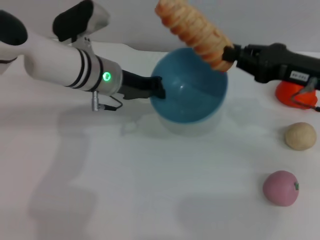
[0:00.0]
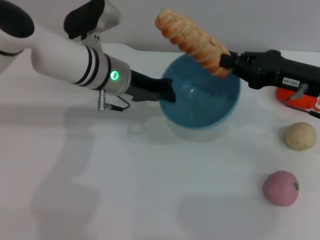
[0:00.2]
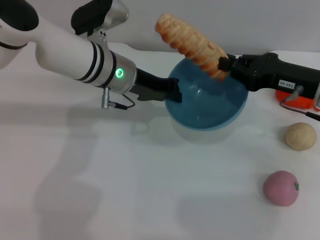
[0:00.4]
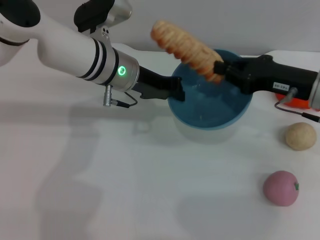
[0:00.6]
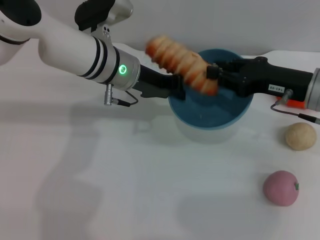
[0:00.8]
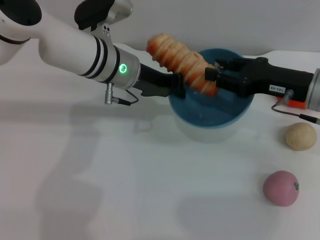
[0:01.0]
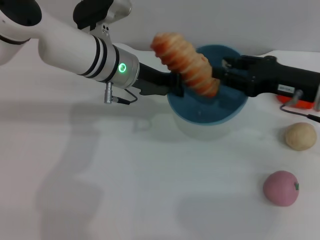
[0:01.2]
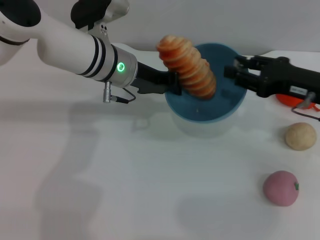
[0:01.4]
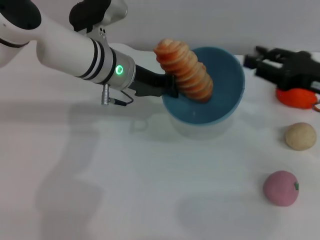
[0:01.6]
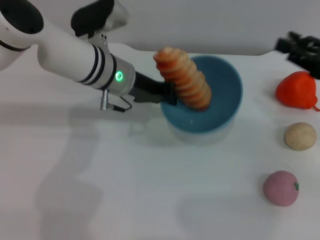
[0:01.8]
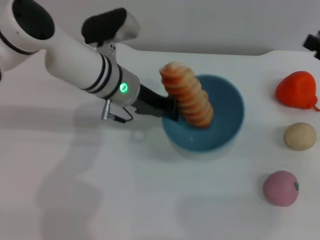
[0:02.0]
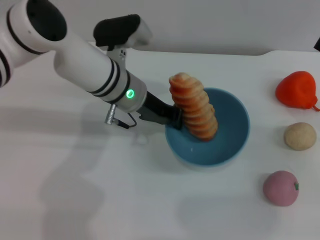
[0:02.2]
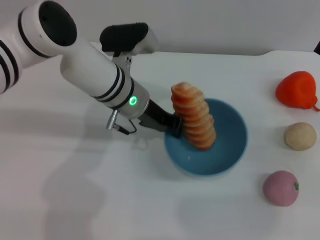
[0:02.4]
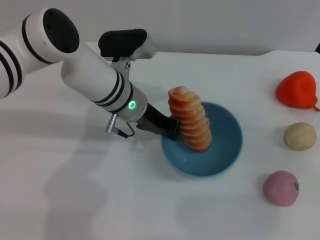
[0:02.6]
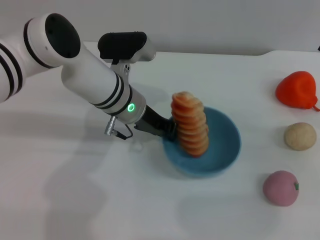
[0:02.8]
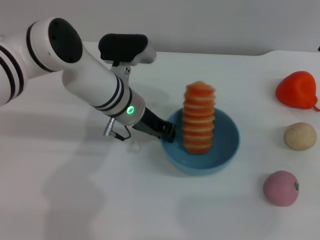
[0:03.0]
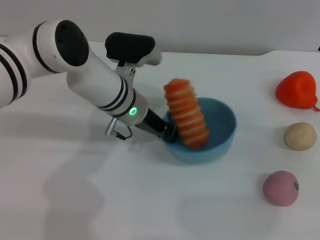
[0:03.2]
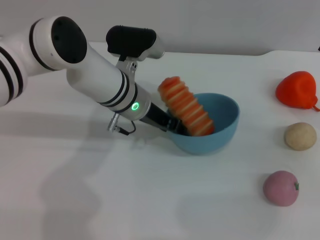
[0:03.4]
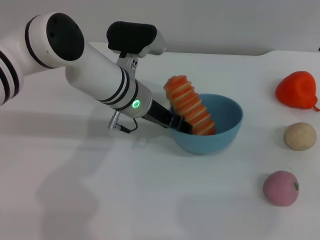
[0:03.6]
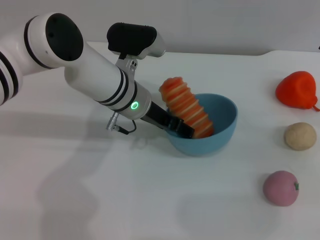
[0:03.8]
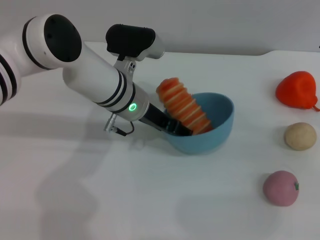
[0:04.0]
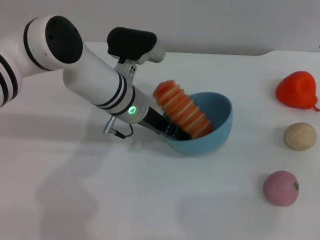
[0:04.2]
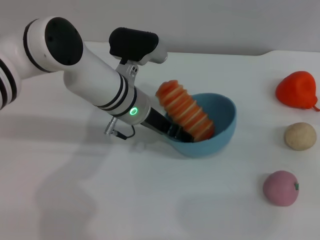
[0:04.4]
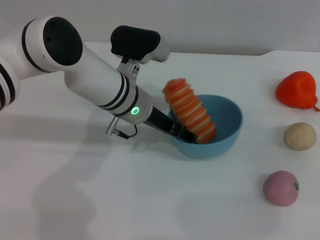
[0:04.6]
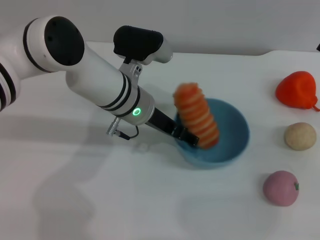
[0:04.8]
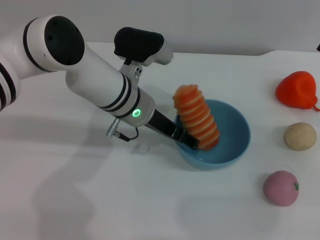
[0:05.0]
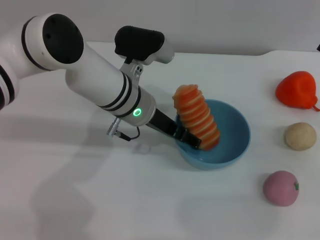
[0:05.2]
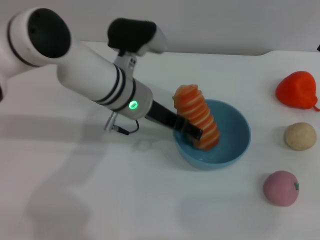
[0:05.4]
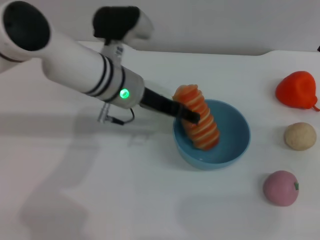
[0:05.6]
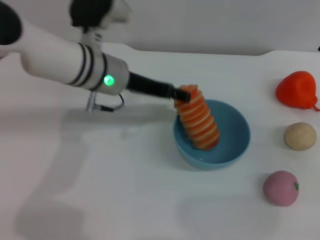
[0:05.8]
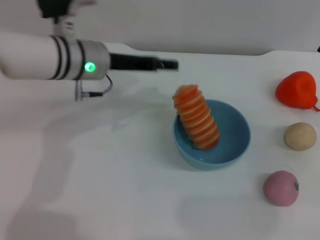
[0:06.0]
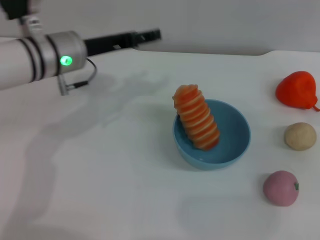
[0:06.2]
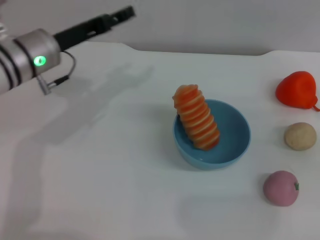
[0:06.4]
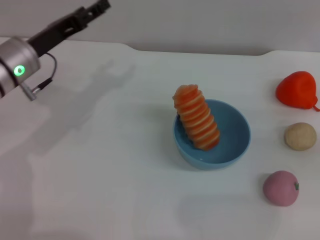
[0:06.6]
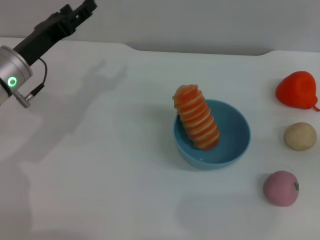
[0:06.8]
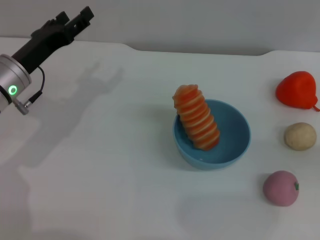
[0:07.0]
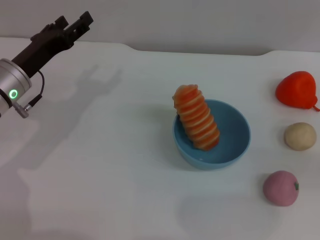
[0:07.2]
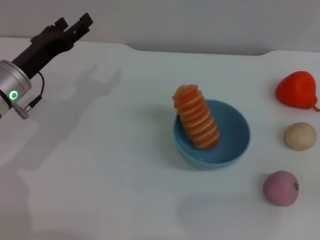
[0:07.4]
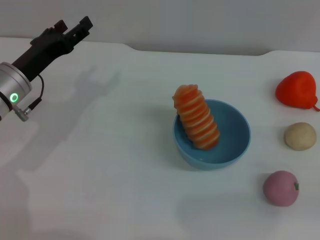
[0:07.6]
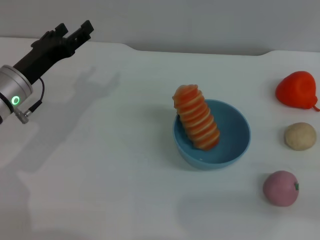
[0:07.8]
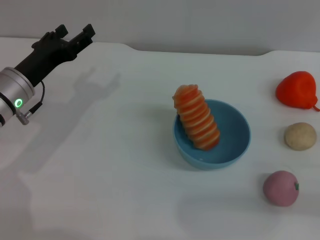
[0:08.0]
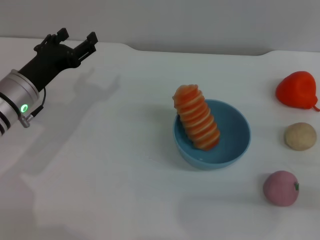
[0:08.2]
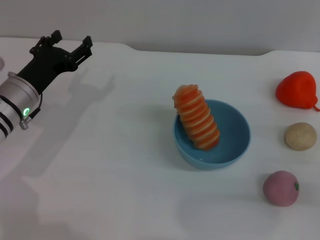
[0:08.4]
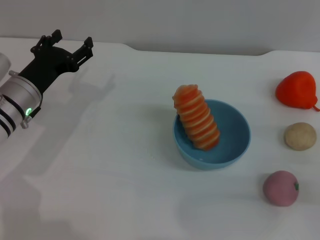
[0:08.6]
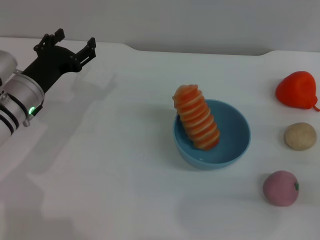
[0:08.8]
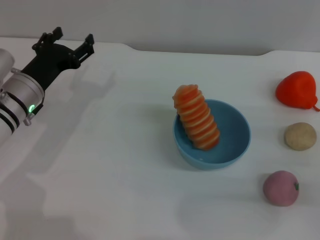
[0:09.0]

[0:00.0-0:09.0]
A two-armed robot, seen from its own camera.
Task of the whole recording: put the bread into the blue bowl and pour it out repeatedly.
Step, 0:00.0 to 0:01.4: Place the bread into the bowl.
Step, 0:01.8 to 0:05.6: Place the bowl on the table.
0:00.0 to 0:01.6: The right gripper opens.
0:01.6 to 0:03.0: The right gripper heads to the right, covering approximately 5 cm, while the left gripper changes place by about 5 cm.
0:03.0 to 0:04.4: The left gripper opens.
0:04.4 to 0:06.0: The left gripper goes some 5 cm to the left.
0:06.0 to 0:07.6: The right gripper heads to the right and backward, covering about 10 cm, while the left gripper heads to the left, downward and backward, covering roughly 15 cm.
